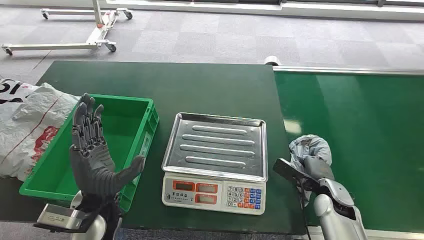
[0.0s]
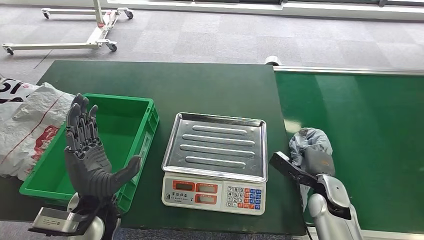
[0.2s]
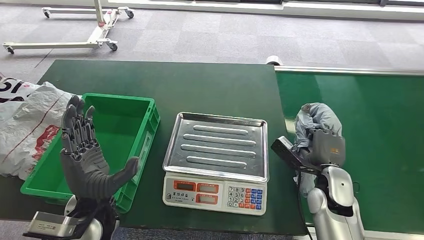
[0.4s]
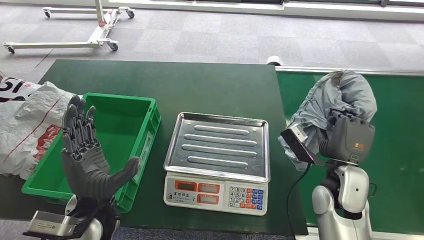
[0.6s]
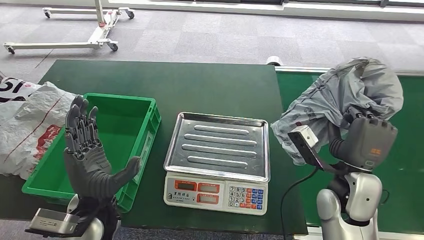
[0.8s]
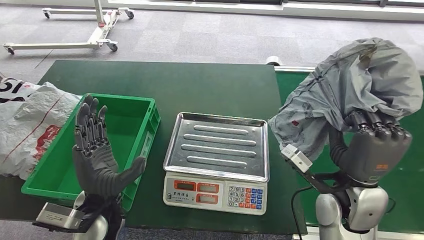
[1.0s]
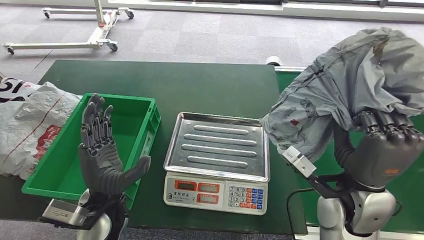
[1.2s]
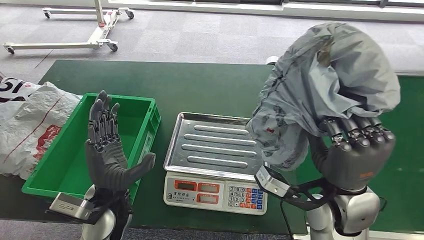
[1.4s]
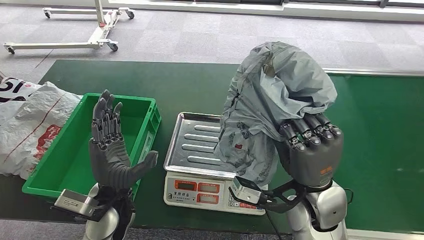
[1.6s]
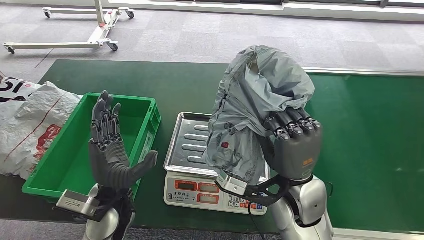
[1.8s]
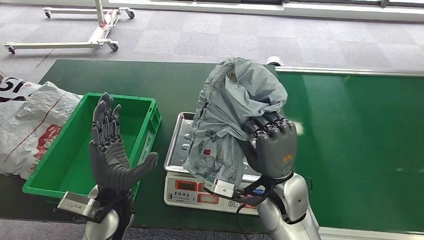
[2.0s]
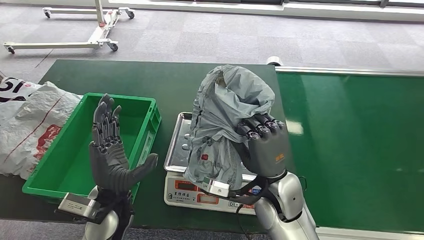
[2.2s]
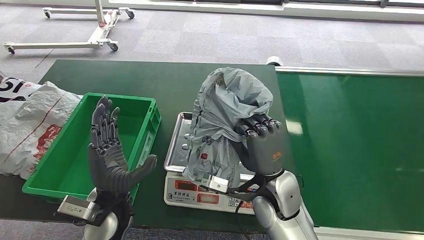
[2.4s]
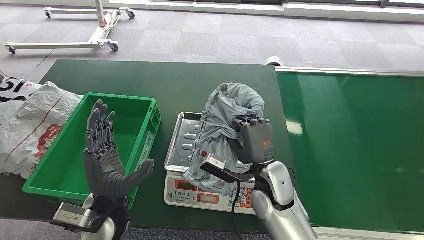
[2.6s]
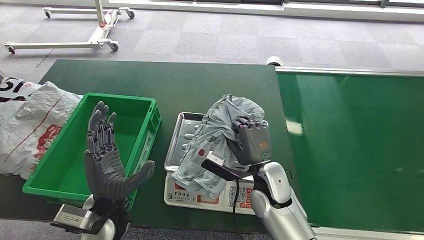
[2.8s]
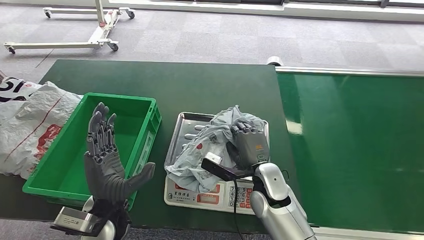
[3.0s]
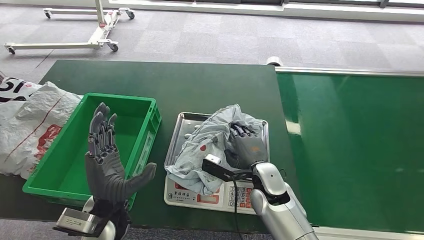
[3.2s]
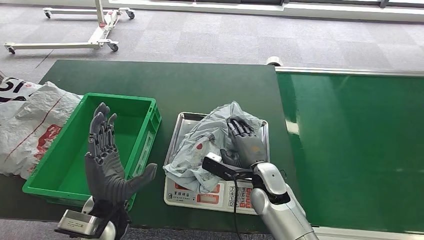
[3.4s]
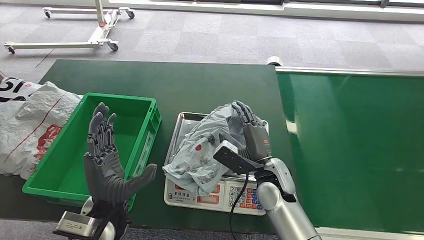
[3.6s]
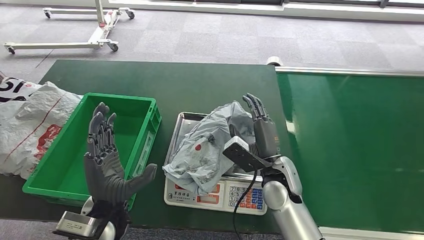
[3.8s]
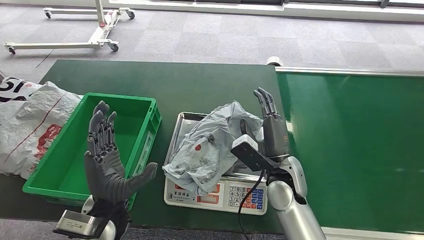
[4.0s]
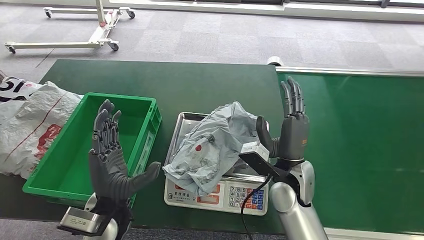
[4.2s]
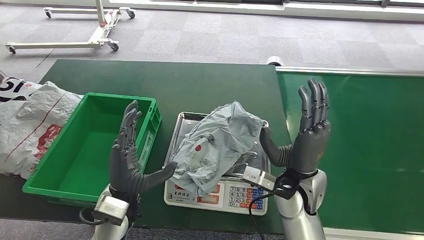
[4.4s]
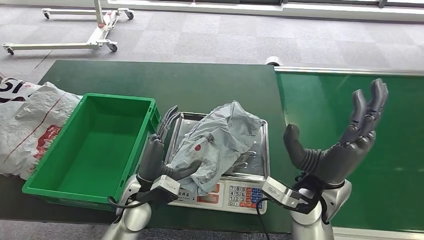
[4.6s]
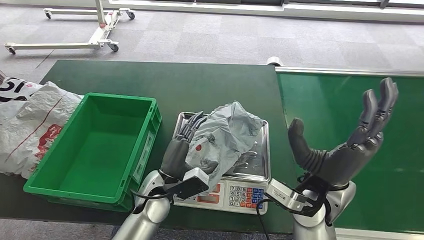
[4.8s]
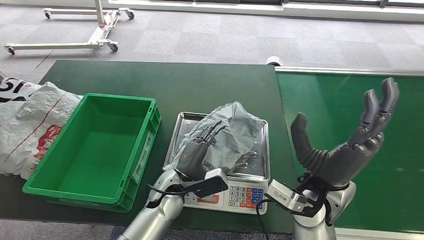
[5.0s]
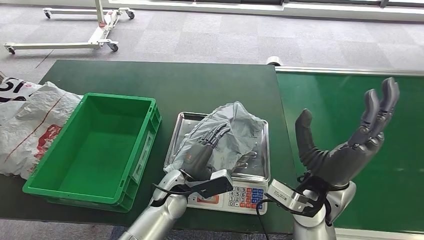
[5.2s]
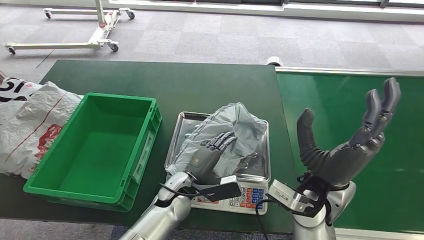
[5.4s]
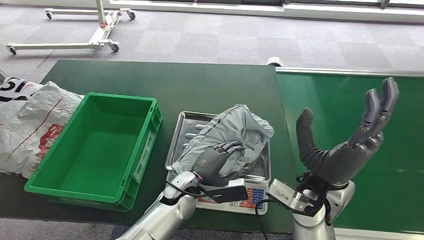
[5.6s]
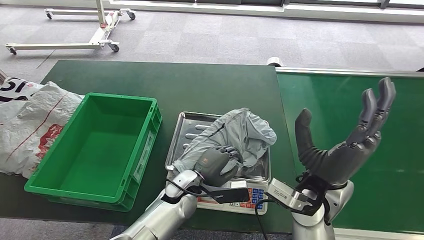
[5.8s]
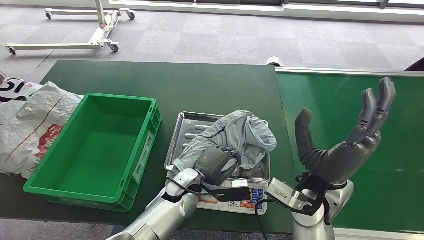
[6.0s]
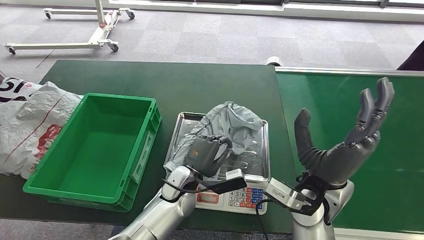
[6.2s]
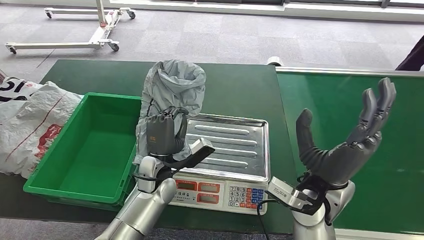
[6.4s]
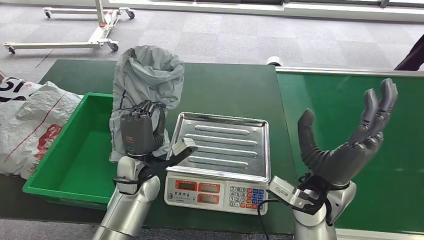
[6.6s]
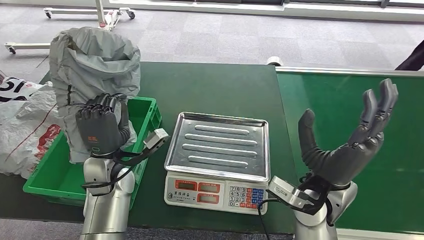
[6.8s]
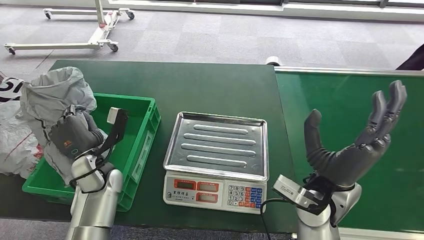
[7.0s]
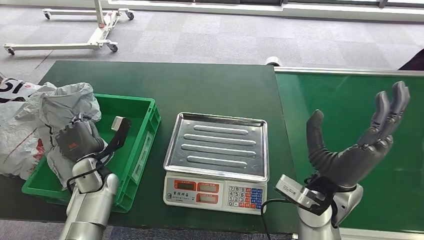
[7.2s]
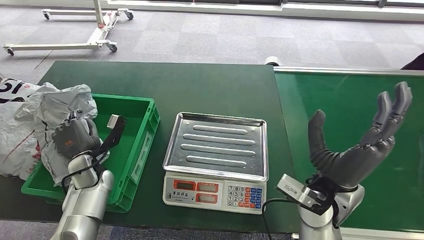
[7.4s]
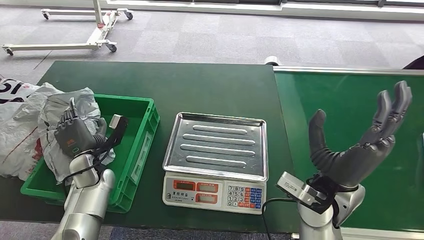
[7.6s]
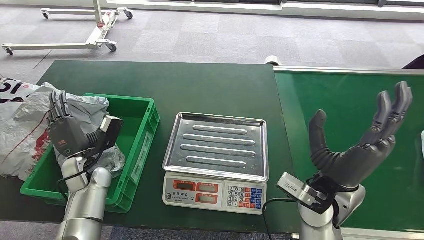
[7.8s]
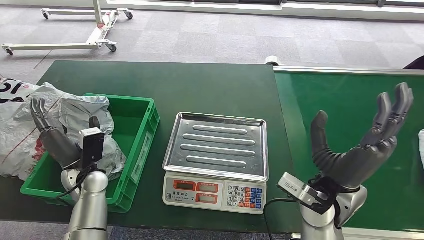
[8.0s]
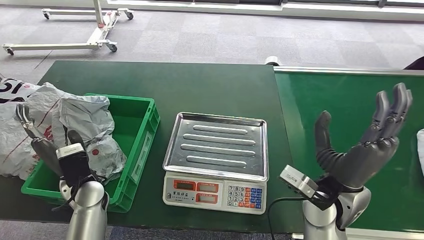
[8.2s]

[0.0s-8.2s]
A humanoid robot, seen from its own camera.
Step, 0.0s to 1.8s: Pick up the package from the conveyor belt.
Step, 2.2s to 4.2s: Place the package onto the inbound machine.
Step, 4.4s to 6.8s: Pick up the package from the inbound machine.
Step, 7.0s to 8.2s: Place the package into the parcel locker.
1.6s to 3.2s: The right hand is displaced downward, to the left and forward by approximately 15 cm.
3.2s to 5.0s: The left hand travels to the right, forward and downward by approximately 15 cm. Meanwhile the right hand moves upward, to the right and backward, about 15 cm.
5.0s to 6.6s: The left hand is displaced to the left by roughly 5 cm.

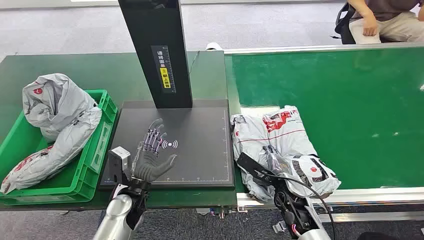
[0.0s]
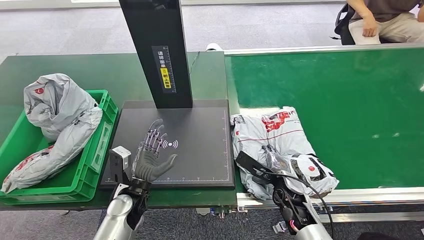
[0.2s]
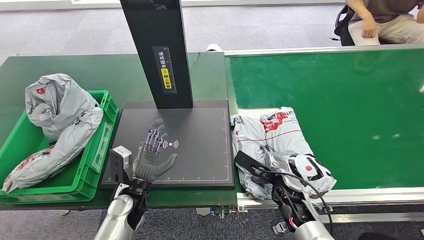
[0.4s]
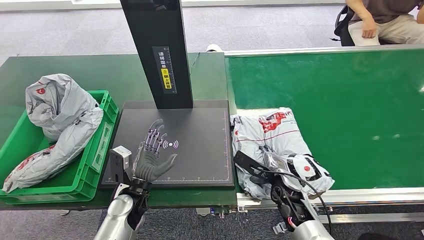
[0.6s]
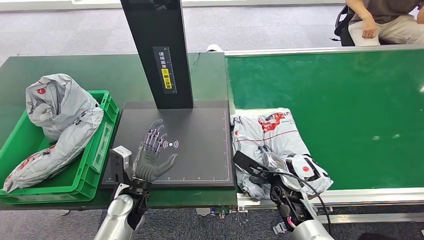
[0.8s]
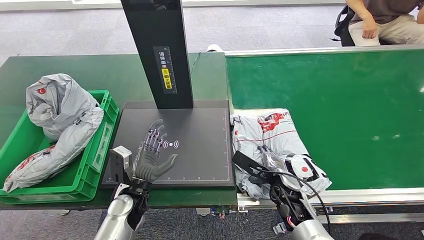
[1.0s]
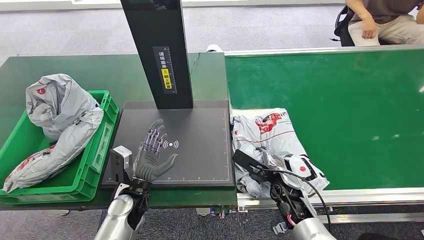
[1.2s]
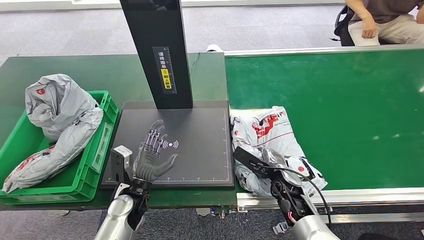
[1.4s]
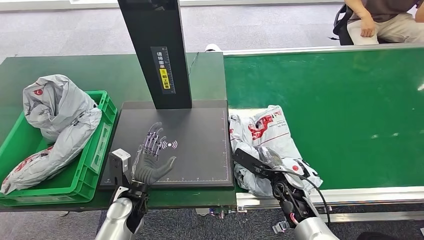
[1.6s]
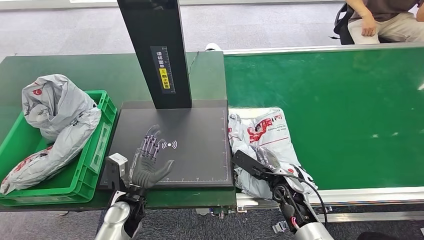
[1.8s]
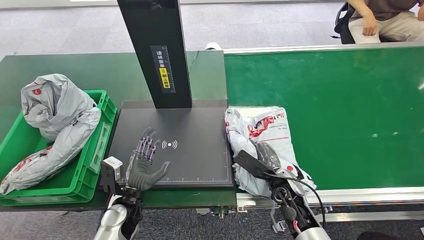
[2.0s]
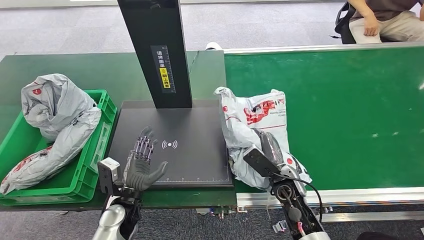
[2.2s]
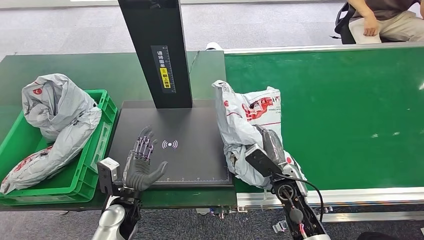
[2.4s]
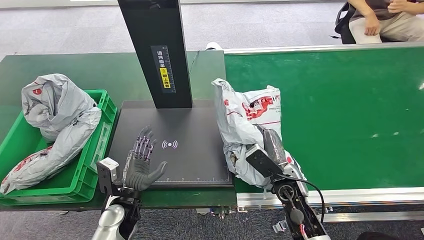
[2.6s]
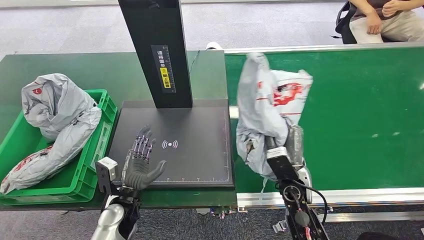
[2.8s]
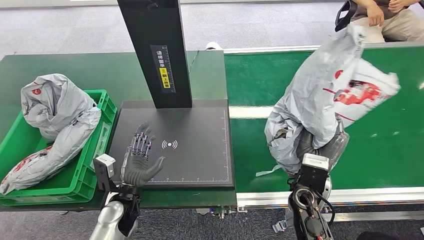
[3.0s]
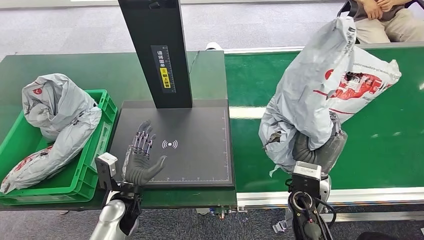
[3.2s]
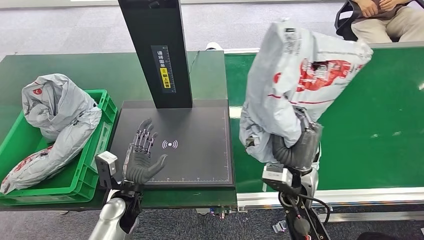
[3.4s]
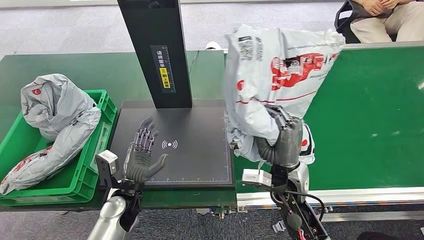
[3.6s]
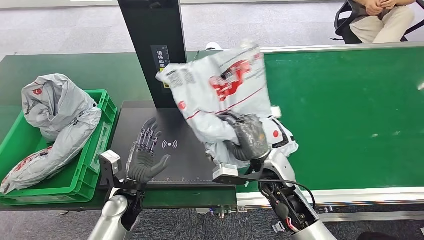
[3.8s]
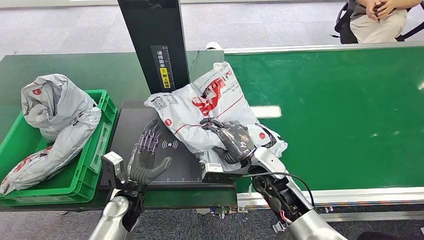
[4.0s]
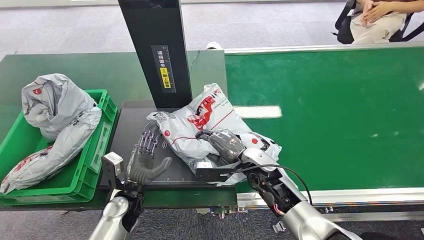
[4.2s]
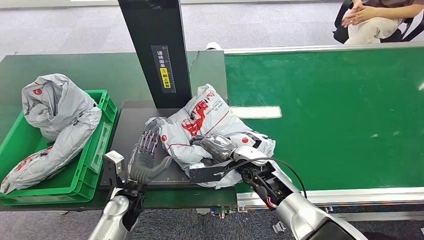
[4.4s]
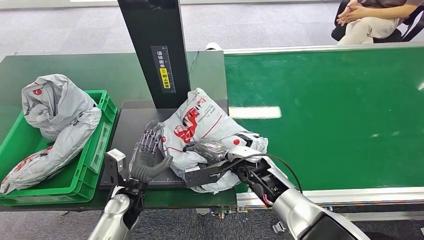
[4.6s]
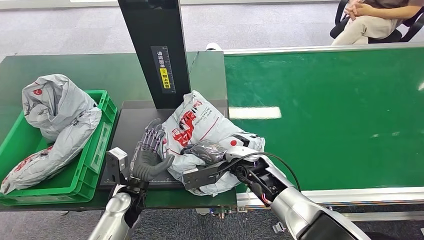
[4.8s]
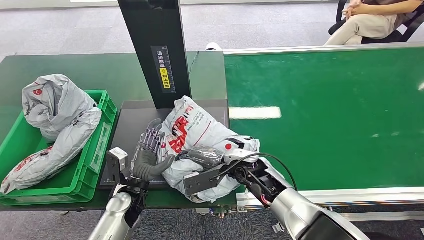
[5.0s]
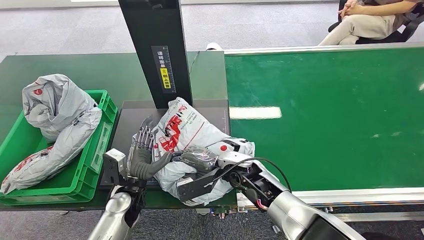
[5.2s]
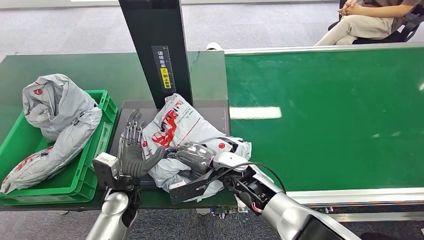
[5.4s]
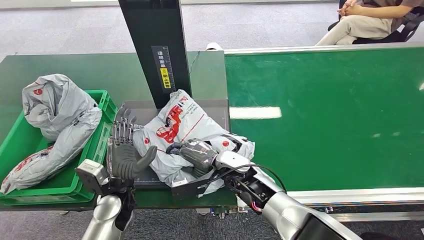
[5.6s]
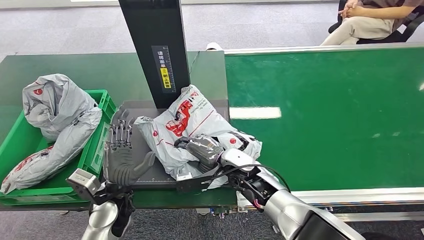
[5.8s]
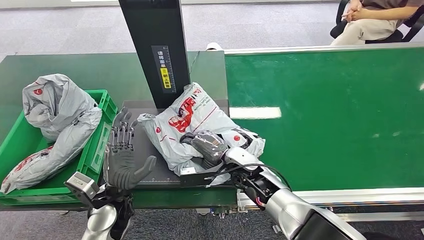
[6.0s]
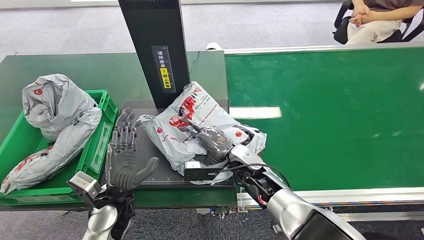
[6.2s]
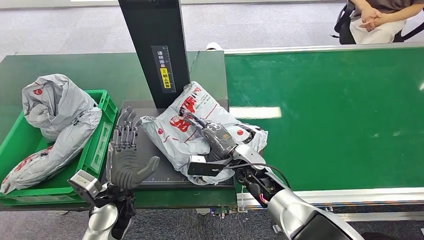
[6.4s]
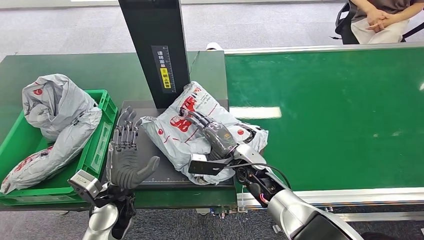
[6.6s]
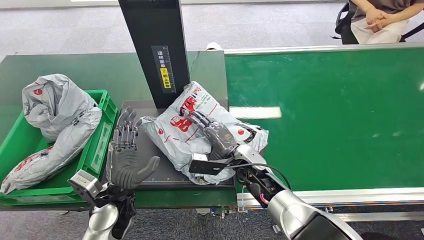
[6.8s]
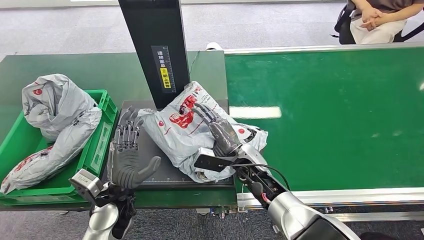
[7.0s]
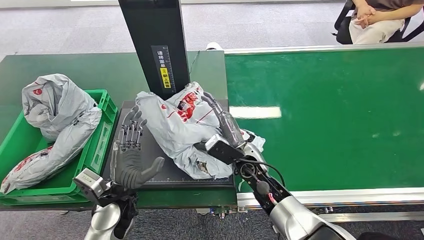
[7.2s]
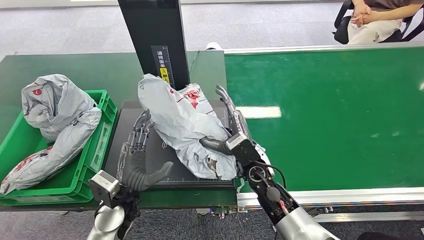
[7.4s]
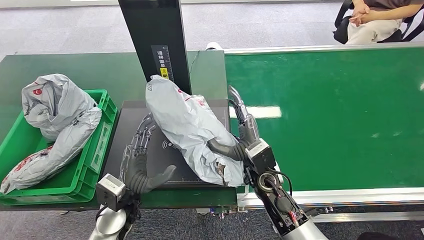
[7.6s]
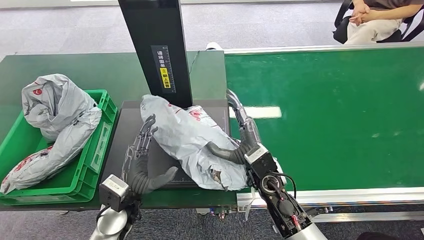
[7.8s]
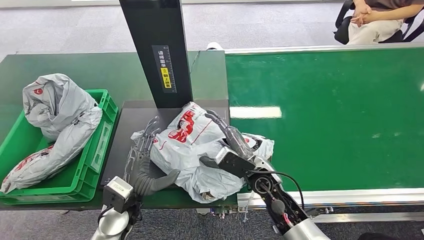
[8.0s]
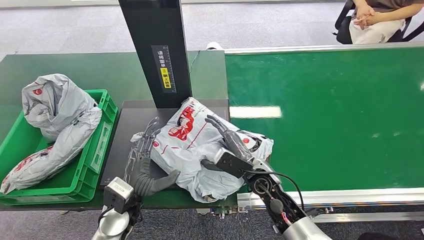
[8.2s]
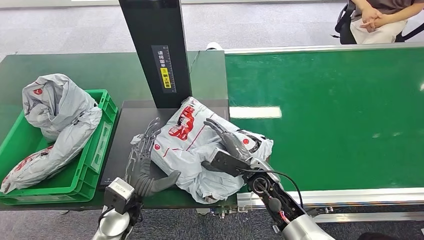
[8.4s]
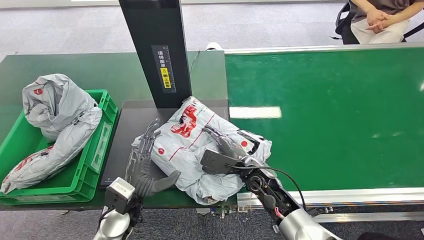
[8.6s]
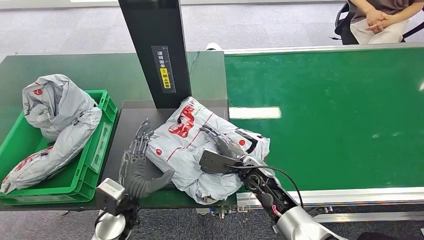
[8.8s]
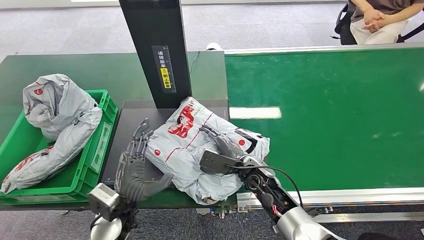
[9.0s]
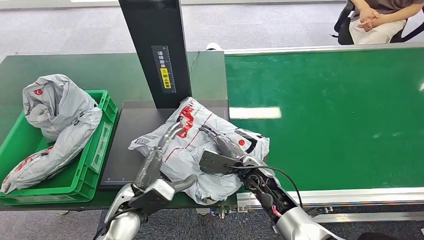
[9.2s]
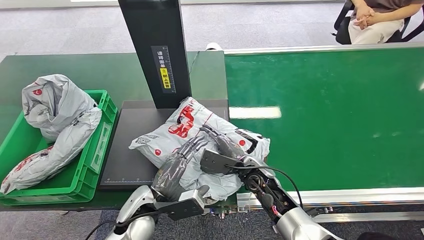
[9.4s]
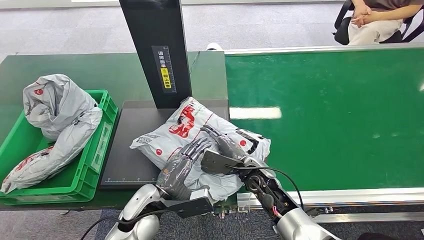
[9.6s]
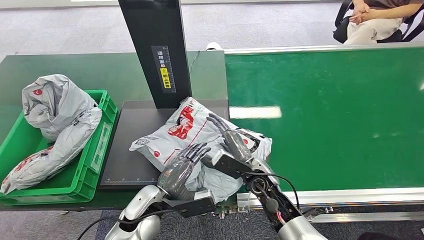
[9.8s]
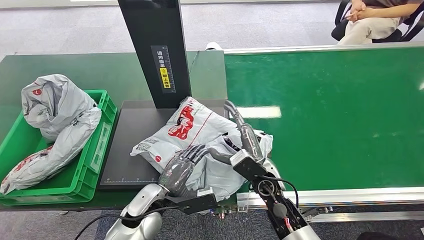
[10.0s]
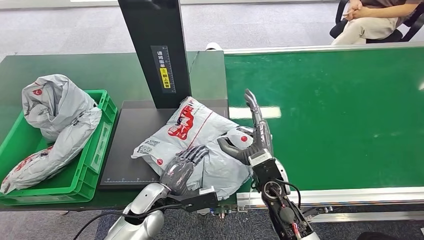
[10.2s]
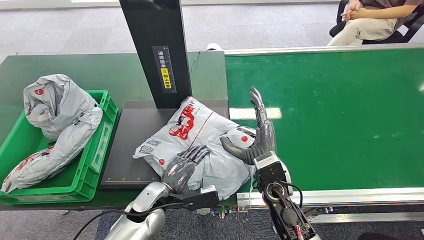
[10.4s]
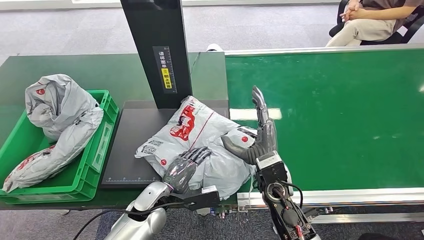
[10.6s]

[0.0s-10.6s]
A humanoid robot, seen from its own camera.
Step, 0.0s to 3.0s: Pick up the package from the conveyor belt.
Step, 3.4s to 9.0s: Place the package onto the inbound machine.
4.6s to 6.0s: The left hand is displaced upward by some 5 cm.
7.6s to 9.0s: The right hand moves about 5 cm.
